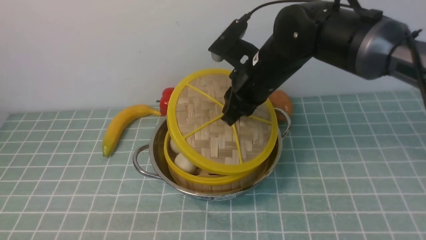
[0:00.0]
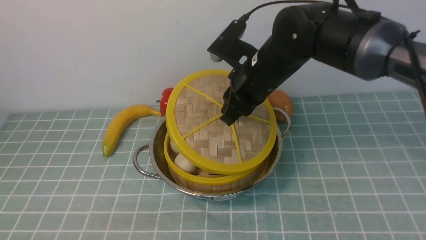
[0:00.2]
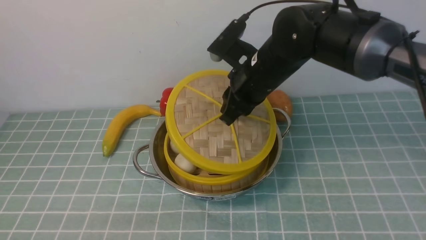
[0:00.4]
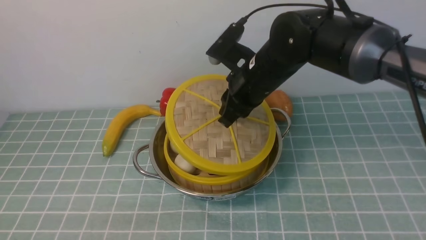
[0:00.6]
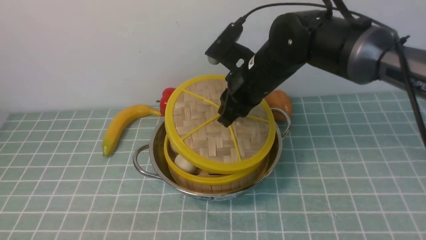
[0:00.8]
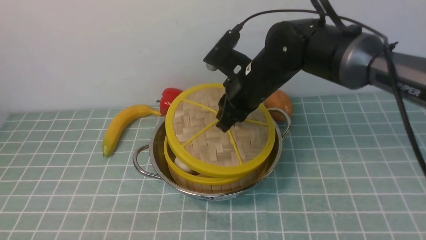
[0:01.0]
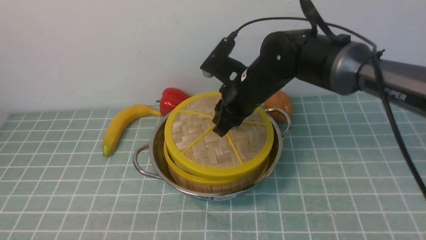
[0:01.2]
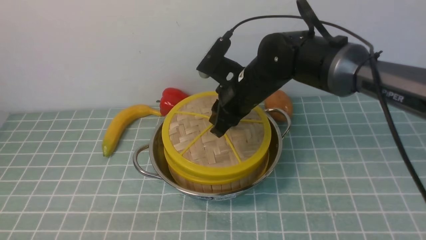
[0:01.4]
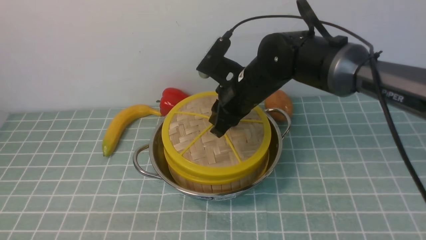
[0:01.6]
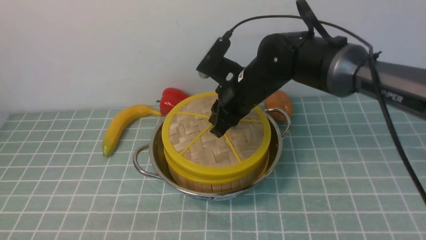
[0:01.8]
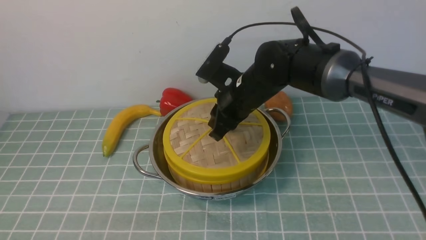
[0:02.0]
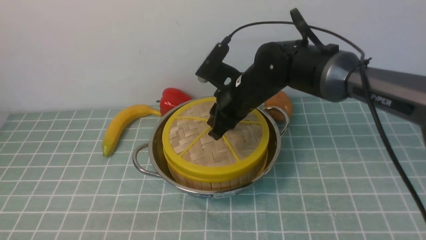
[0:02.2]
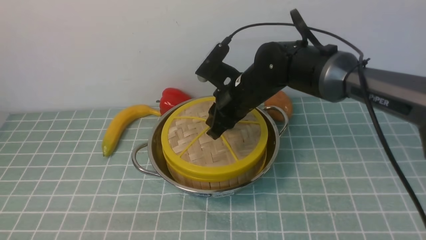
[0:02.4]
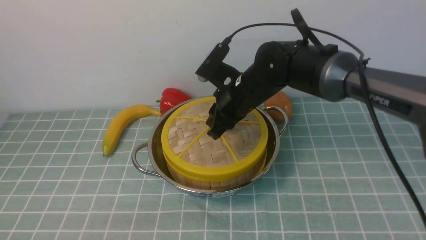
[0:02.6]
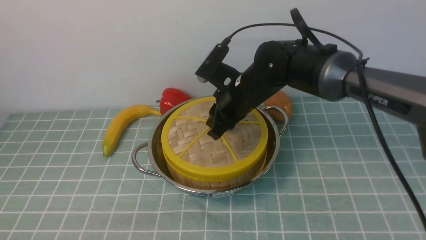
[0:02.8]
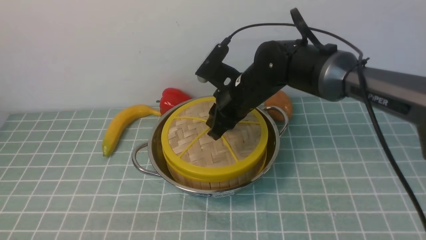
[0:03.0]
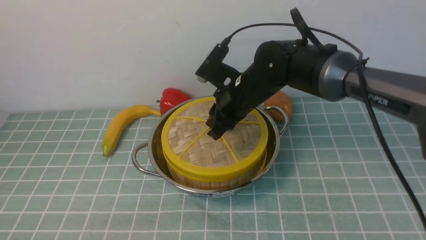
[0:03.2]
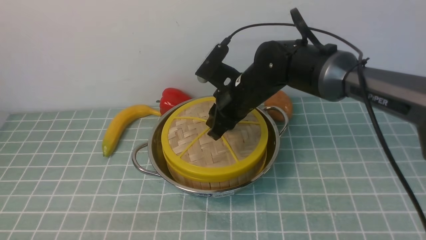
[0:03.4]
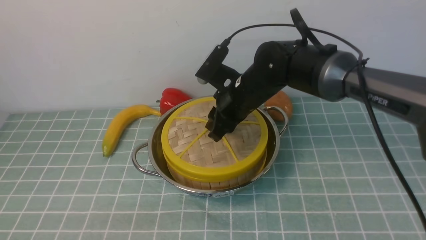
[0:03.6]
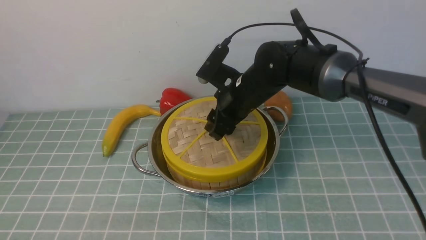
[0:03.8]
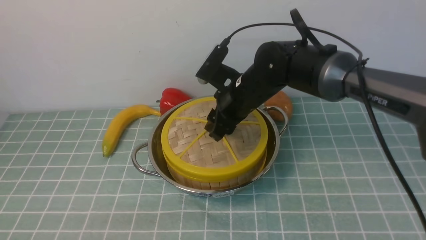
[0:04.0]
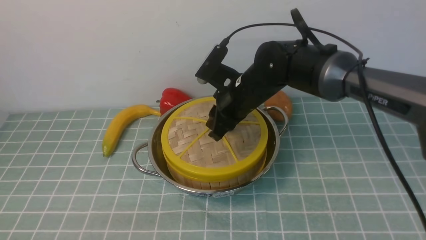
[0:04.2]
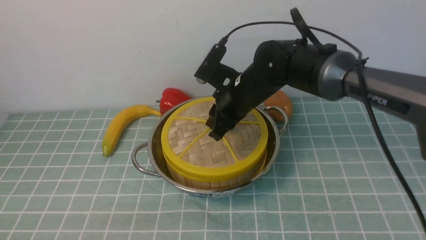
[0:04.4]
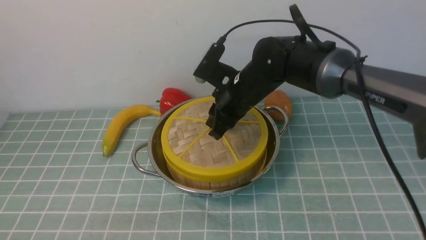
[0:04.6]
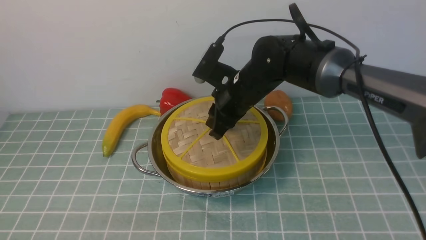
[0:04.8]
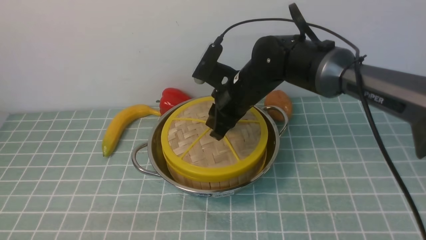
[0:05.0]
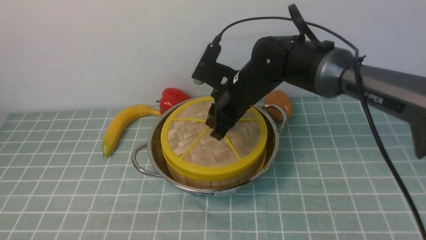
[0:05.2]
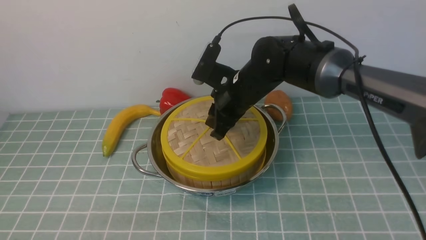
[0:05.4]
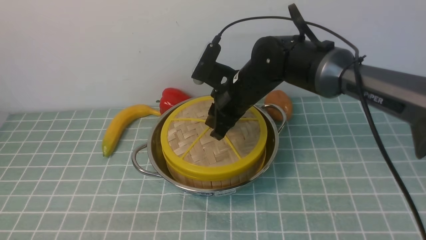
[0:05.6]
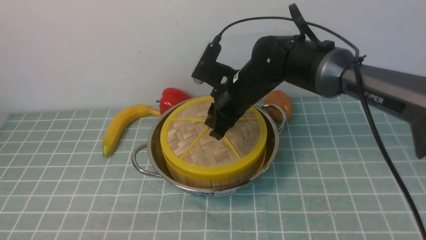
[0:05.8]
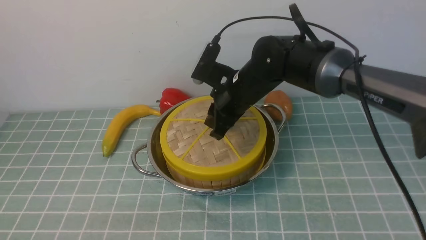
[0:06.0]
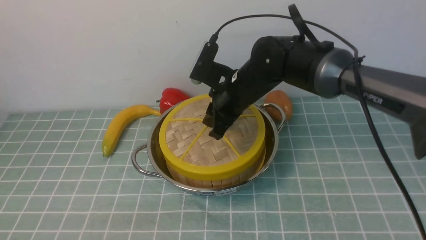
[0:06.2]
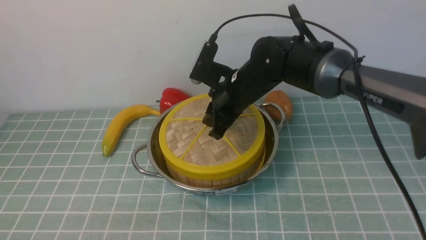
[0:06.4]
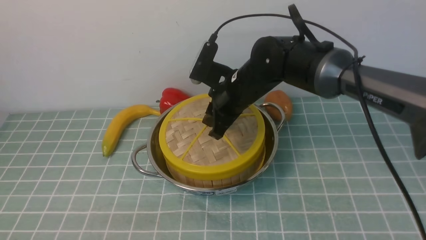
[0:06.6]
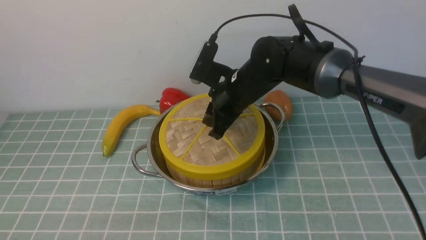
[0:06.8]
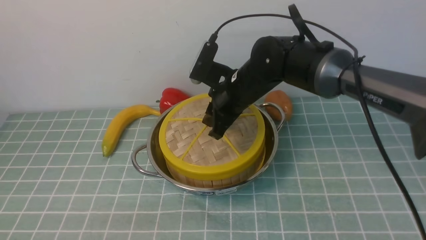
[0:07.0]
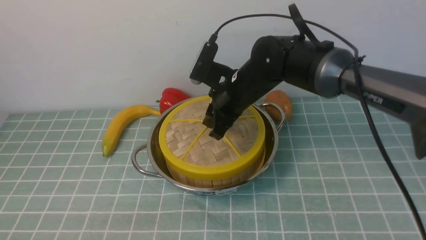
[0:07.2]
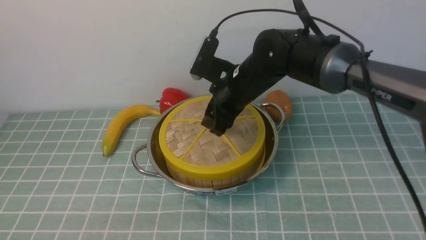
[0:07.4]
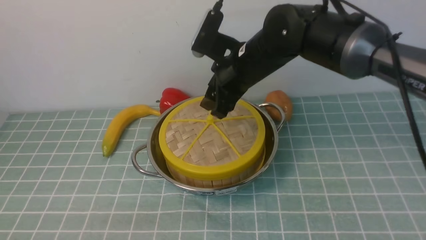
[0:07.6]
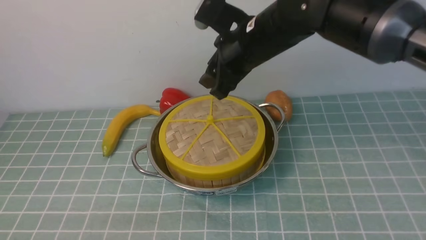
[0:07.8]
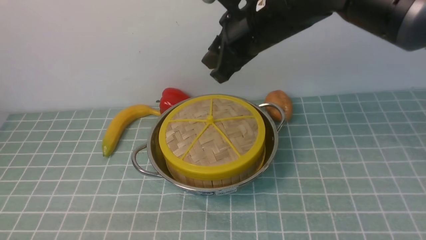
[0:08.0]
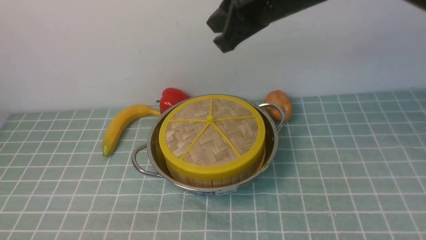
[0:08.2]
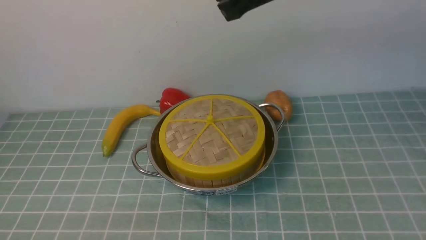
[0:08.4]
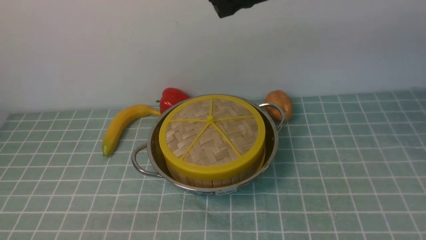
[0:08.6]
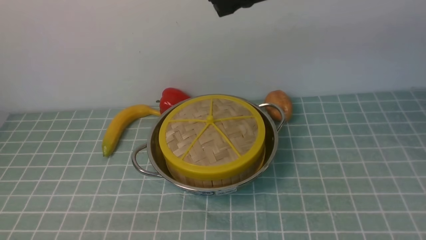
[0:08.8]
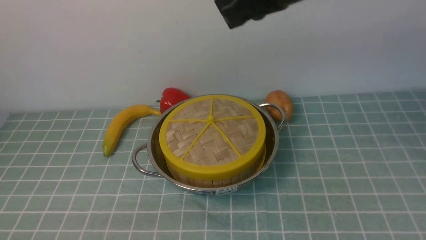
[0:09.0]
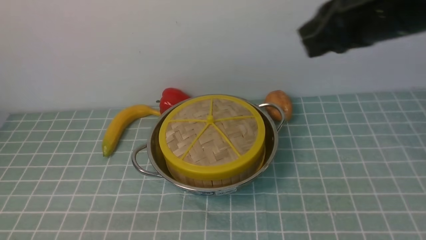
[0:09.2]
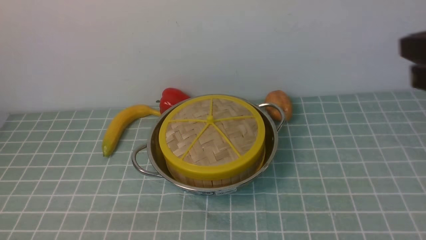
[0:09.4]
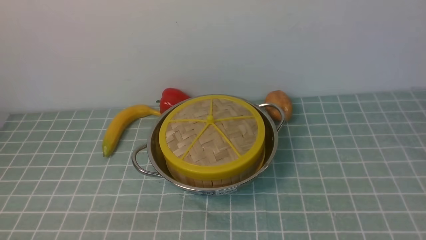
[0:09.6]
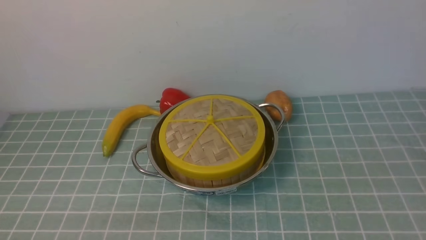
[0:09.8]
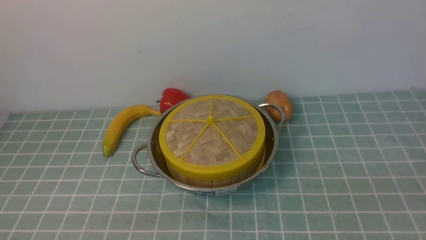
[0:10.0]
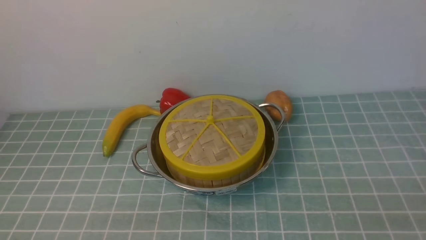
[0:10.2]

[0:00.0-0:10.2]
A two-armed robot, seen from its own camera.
Task of the whole recording: place the steamer in the pot on the blue tablecloth, and put the lid on the steamer.
Step, 0.0 to 8.0 s: use the right arm to place the steamer lid on the steamer.
0.0 to 1.4 s: The right gripper changes place by about 5 cm.
1.4 to 3.0 s: There are only small adjustments of the grippers.
3.0 to 4.4 s: The right gripper opens, then closes once more.
4.4 to 5.8 s: The grippers move only a little.
5.8 to 7.2 s: Both grippers stay put.
7.2 to 8.8 s: The right gripper moves upward and backward, about 25 cm, and closes.
8.8 to 10.2 s: The right gripper goes some 40 cm backward, to the right and downward, and opens up.

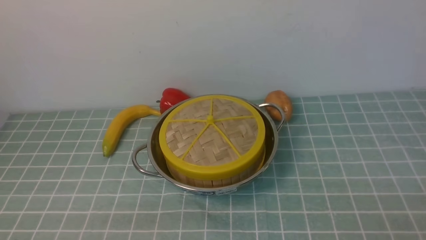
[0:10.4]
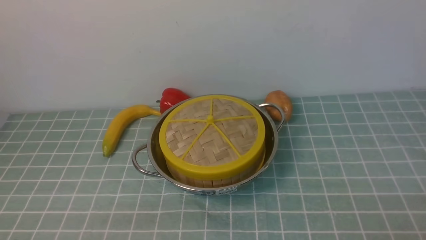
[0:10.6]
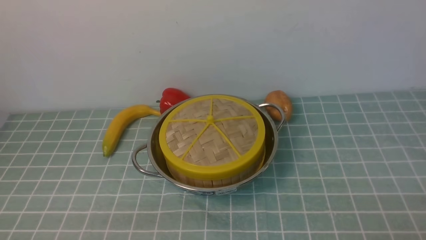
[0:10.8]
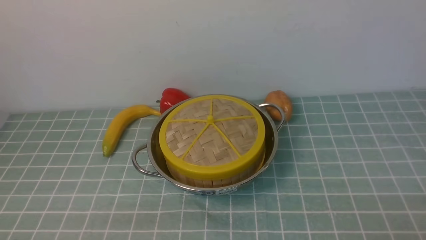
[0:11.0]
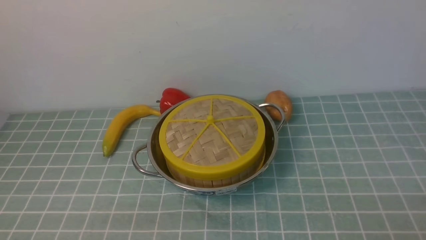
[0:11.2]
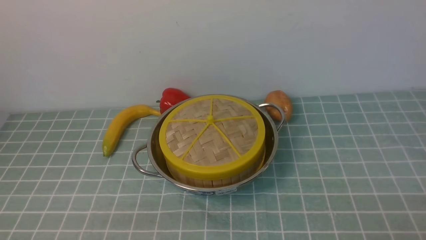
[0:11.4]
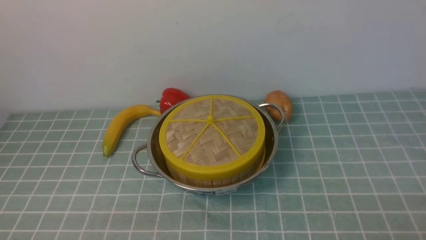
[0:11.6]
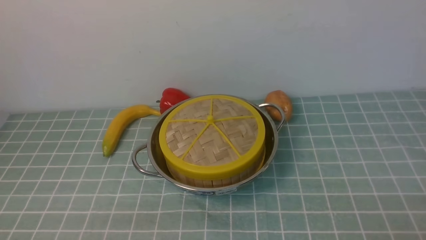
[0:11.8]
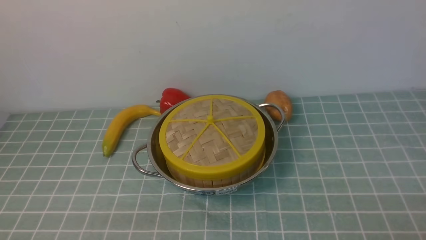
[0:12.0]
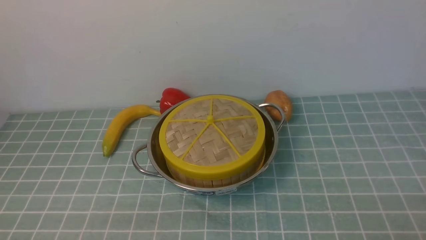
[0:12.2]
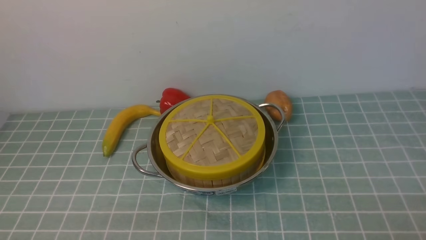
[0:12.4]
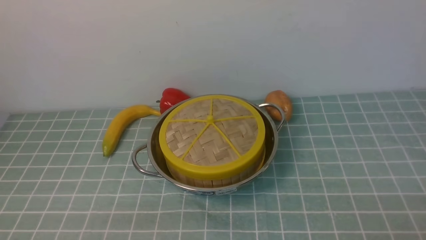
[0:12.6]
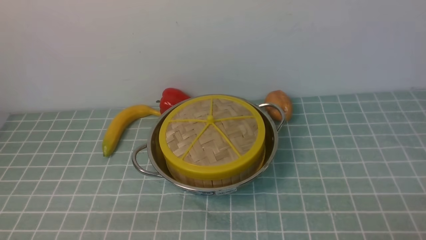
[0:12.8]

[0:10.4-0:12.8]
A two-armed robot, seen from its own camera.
Task of the whole recording: place the steamer in the pot on the blue tablecloth, and put the lid on the steamer.
11.6 to 12.8 s: Both grippers stay put.

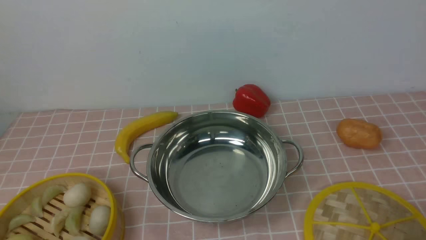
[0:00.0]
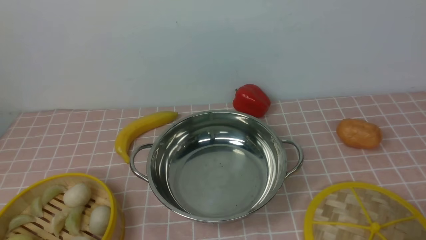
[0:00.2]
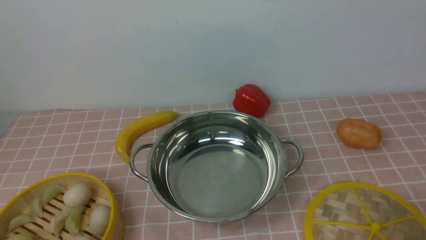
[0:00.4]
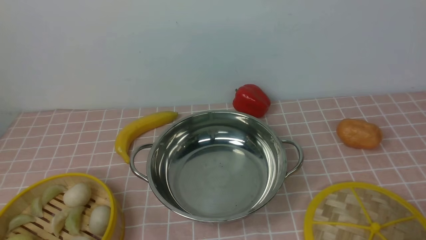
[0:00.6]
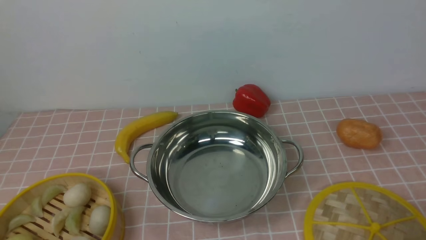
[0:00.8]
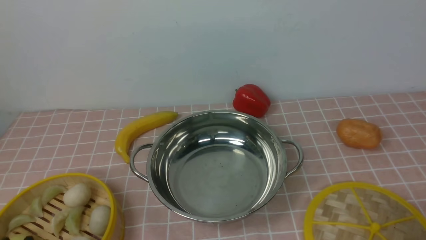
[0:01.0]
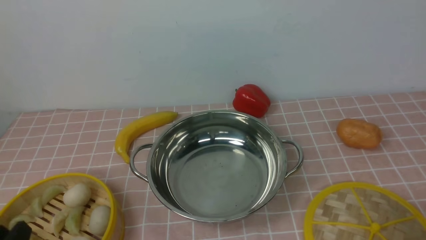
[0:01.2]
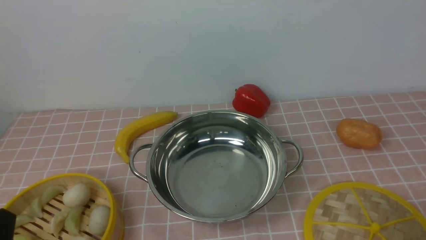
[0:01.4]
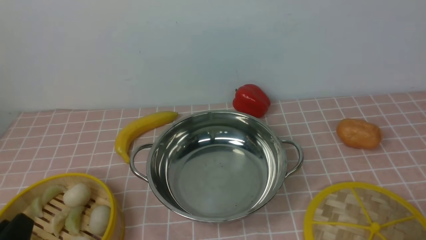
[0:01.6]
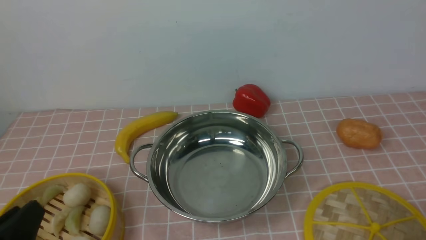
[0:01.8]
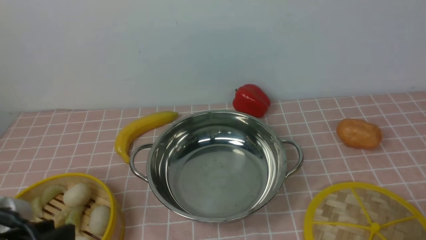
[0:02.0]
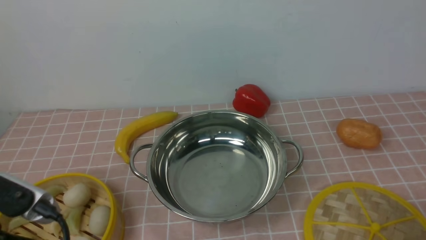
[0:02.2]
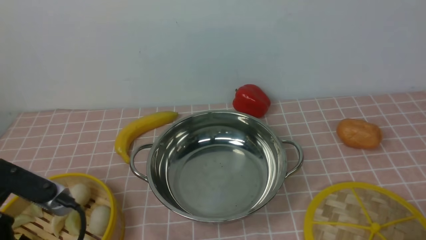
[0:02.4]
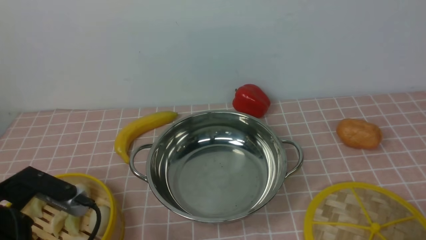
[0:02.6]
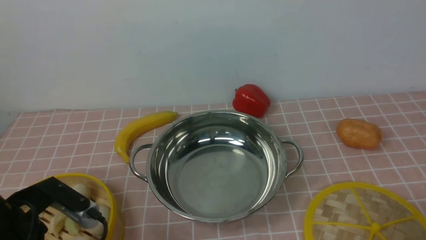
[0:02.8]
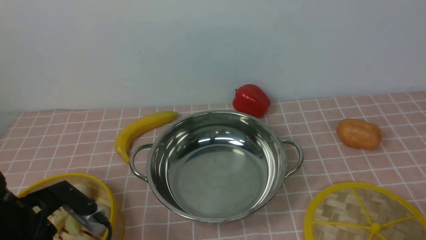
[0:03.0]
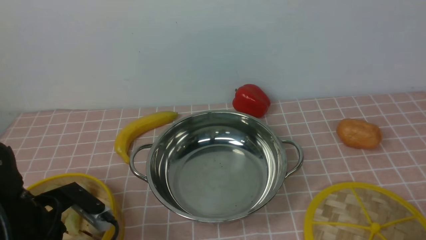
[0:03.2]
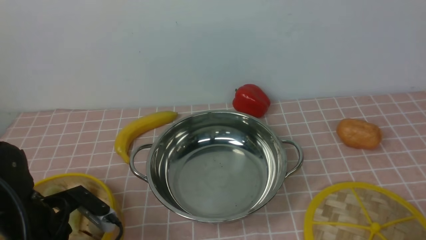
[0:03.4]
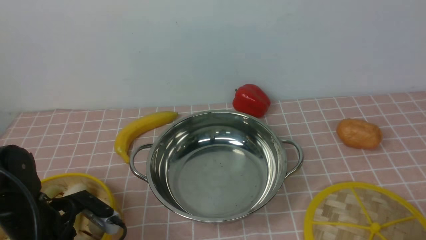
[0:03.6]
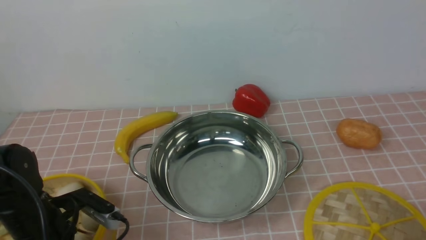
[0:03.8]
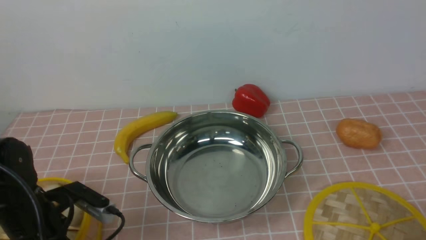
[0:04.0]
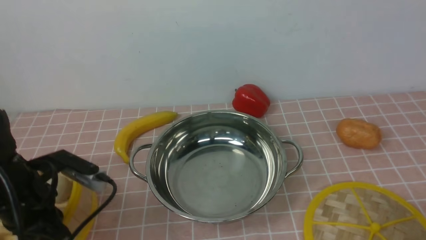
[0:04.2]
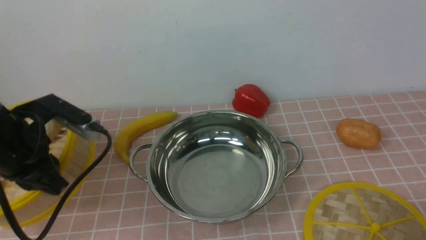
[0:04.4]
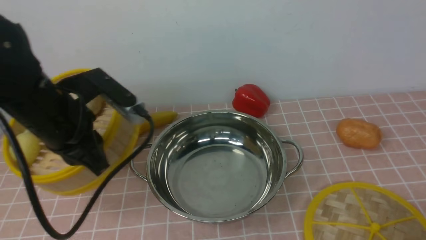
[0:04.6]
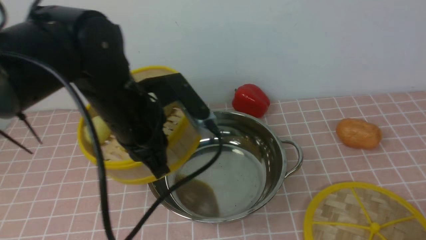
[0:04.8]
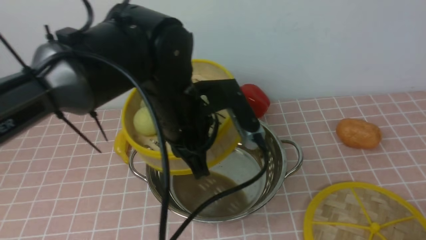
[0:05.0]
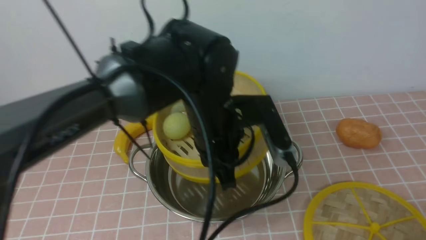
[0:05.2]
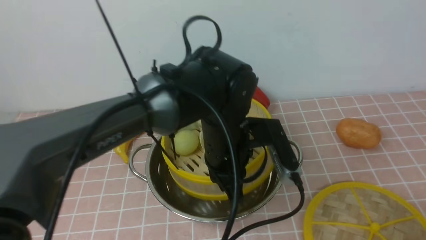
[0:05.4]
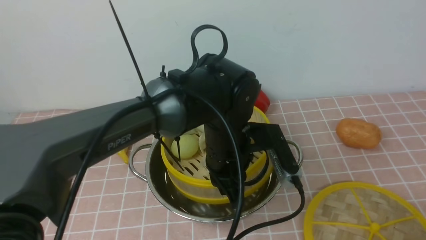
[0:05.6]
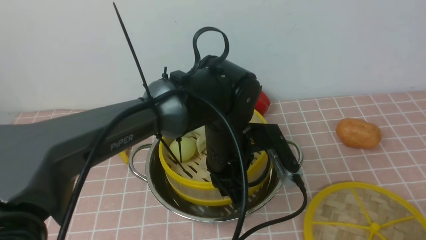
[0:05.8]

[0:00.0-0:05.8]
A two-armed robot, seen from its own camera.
Task of the whole recording: place the steamer in the pot on the pink tablecloth, and put the lid on the steamer.
Step, 0.0 to 4.0 s: use the left arm to lift the steamer closest to it.
1.4 to 2.8 s: The left gripper moves forward, approximately 10 cm.
2.8 to 4.4 s: The left gripper shifts about 10 cm forward, moves roughly 10 cm downward and comes back, and closes.
4.4 to 5.8 s: The left gripper travels to the right by roughly 25 cm.
